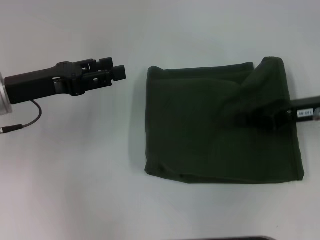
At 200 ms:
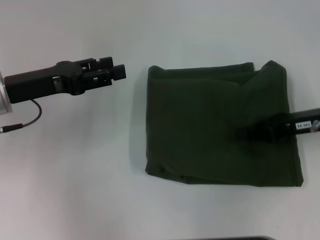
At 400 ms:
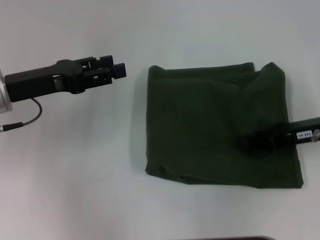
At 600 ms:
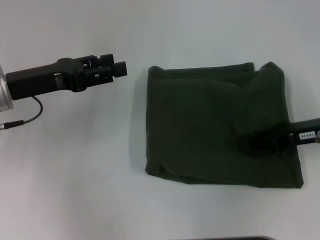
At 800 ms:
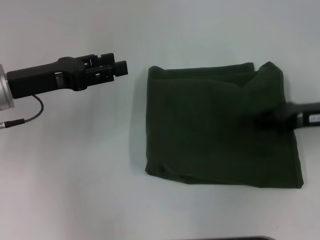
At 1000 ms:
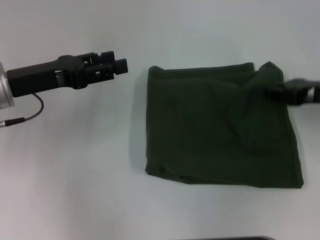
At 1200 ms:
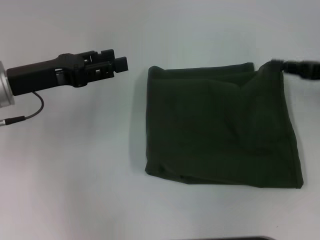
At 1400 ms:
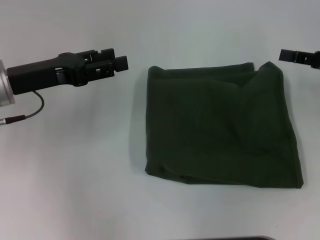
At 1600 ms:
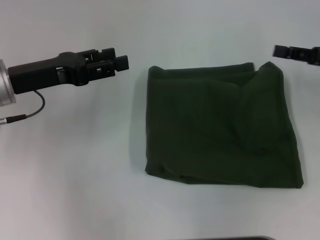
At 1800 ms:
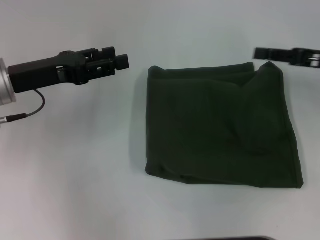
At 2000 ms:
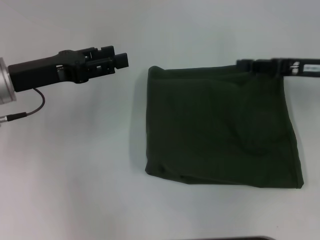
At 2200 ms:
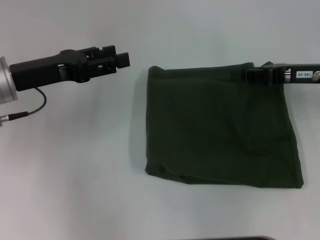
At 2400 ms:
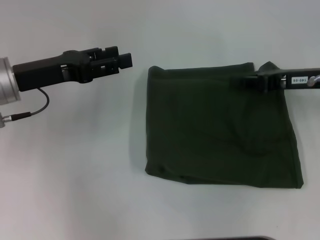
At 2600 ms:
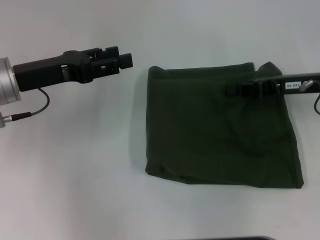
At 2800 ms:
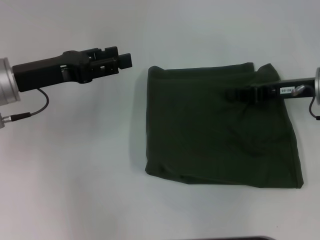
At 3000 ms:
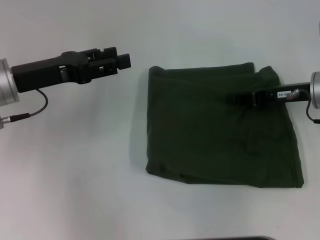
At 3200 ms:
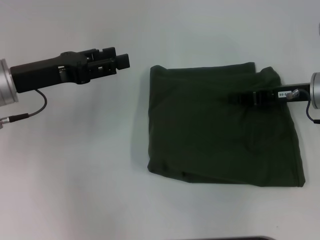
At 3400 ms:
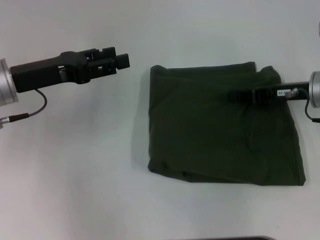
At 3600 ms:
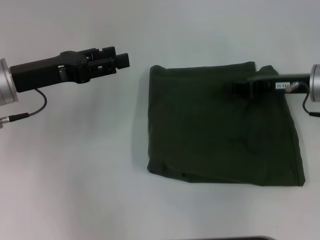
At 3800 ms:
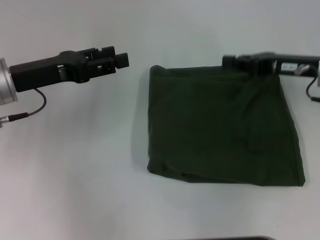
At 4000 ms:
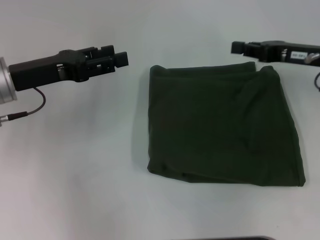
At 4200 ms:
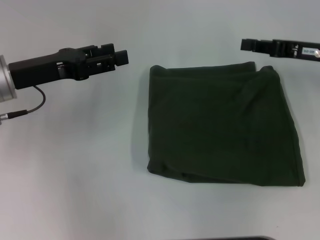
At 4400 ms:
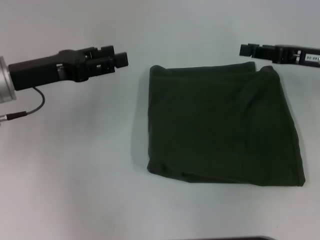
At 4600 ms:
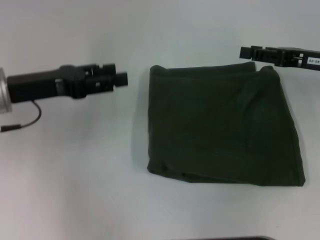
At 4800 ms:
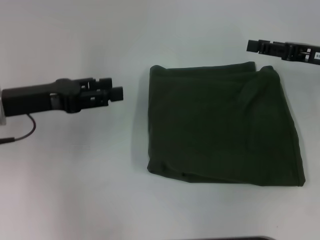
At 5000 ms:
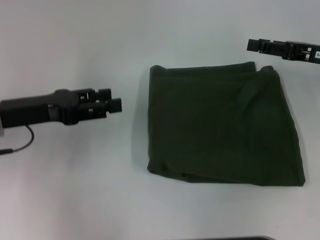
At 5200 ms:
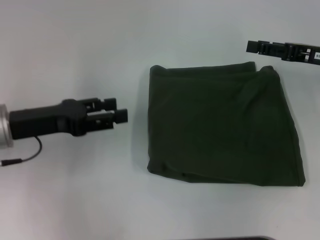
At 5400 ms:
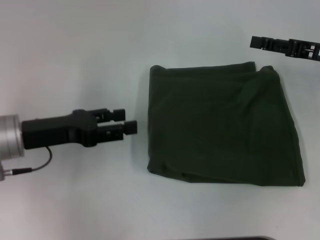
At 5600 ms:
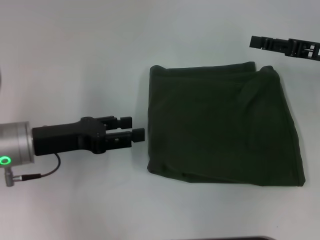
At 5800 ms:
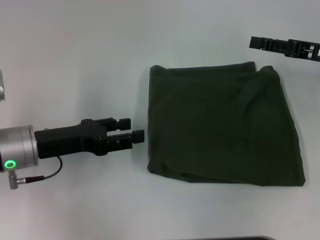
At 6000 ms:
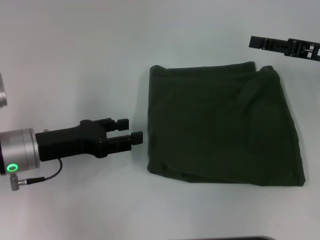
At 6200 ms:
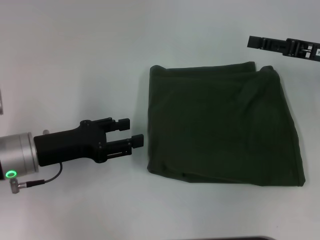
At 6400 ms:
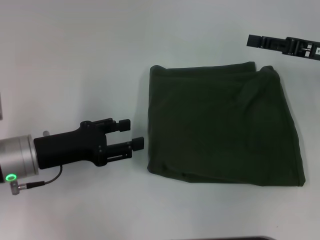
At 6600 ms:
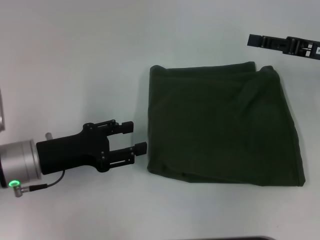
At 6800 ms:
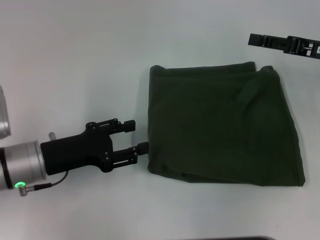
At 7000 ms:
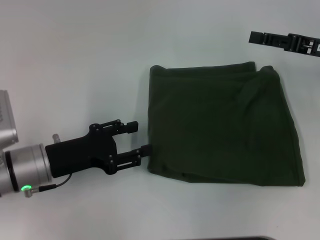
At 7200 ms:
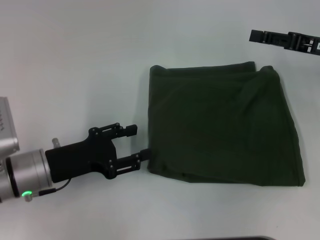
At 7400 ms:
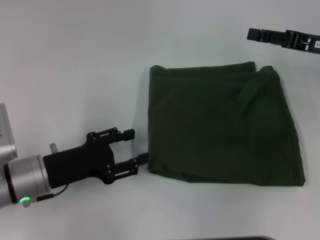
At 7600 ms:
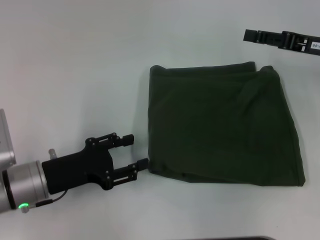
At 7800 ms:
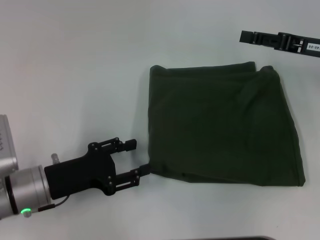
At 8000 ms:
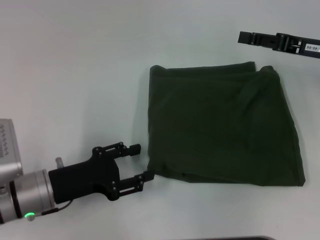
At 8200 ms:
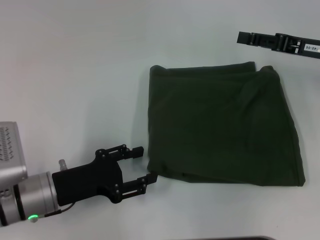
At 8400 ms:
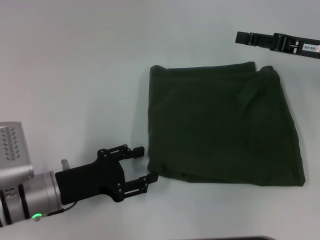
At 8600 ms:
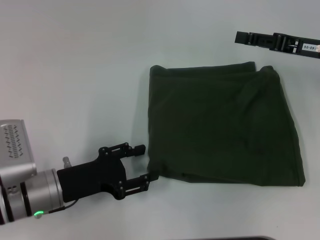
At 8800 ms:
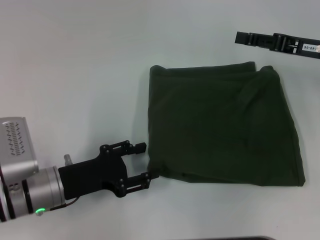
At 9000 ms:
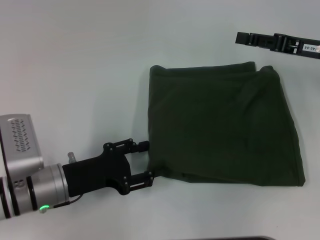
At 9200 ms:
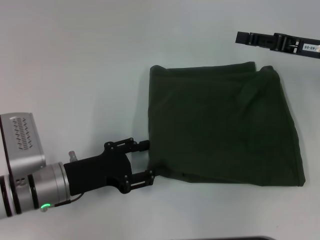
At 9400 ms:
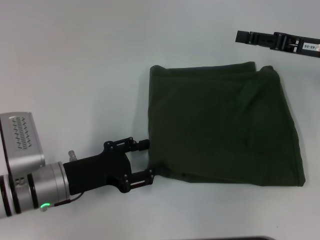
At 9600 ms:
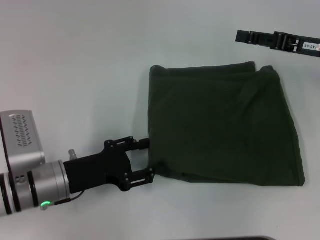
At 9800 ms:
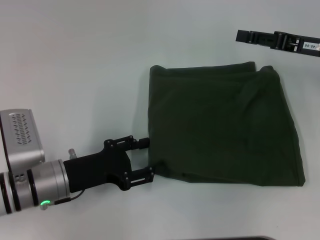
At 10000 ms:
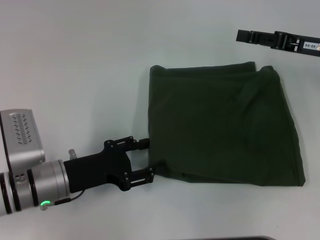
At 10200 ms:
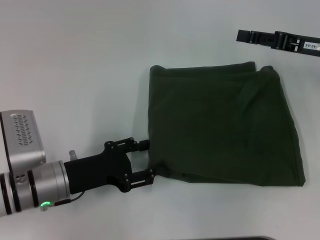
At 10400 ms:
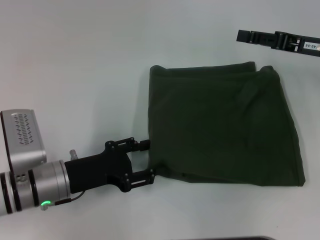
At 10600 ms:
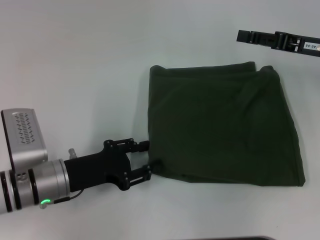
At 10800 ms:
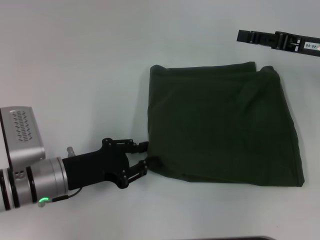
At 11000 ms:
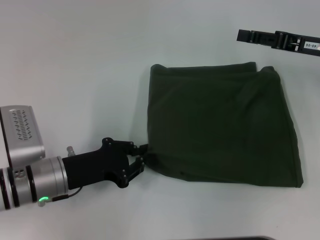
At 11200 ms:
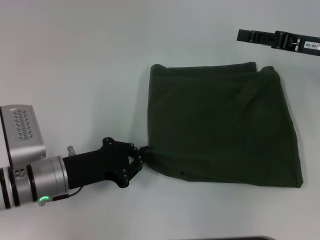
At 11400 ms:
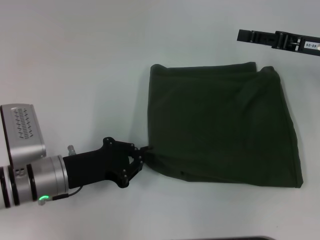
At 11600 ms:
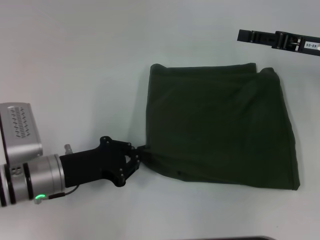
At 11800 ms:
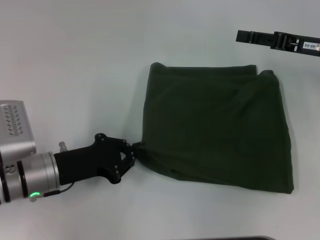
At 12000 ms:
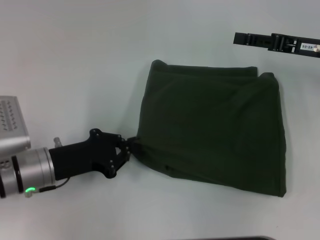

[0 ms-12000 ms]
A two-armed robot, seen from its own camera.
0 ms to 1600 ms: The right gripper moves to the right, some 5 cm.
1600 ms to 3000 ms: The right gripper is displaced to the left by some 10 cm.
3000 ms to 4400 ms: The grippers make only small movements.
4400 ms to 6000 ms: The right gripper opens. The left gripper is displaced downward and backward by roughly 10 cm.
6000 ms to 7600 ms: The left gripper shifts by roughly 5 cm.
7600 ms to 9000 ms: The grippers stay close to where they were, moving slightly.
9000 ms to 10400 ms: Both grippers stay put.
10400 ms to 12000 ms: The left gripper closes.

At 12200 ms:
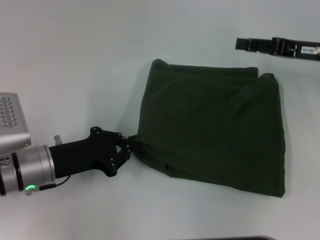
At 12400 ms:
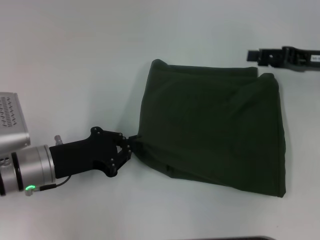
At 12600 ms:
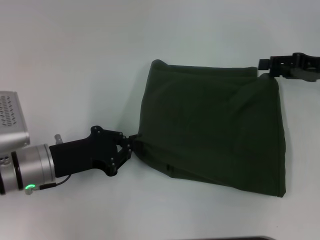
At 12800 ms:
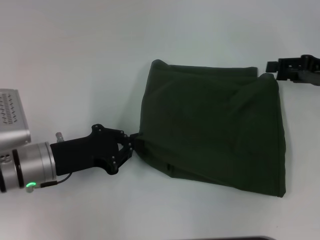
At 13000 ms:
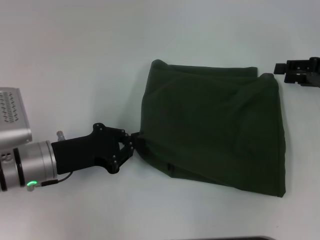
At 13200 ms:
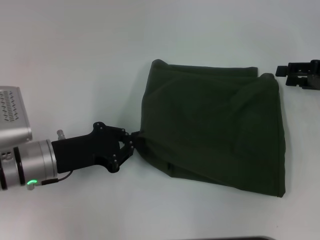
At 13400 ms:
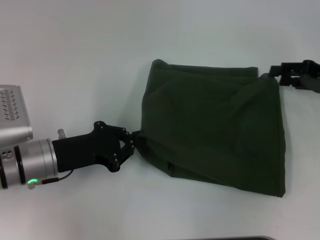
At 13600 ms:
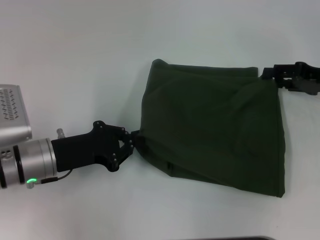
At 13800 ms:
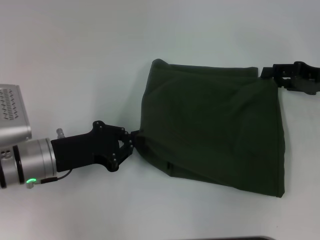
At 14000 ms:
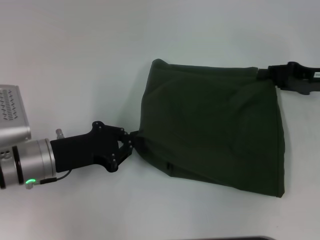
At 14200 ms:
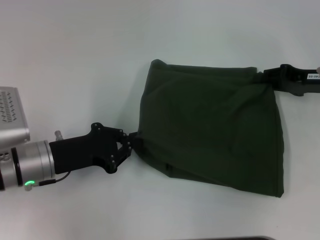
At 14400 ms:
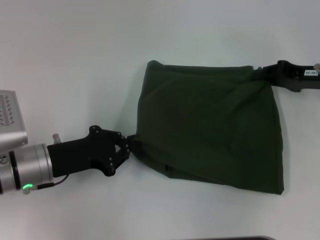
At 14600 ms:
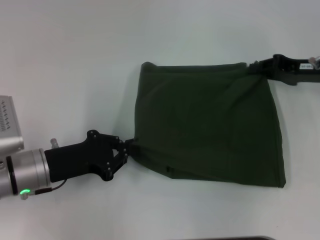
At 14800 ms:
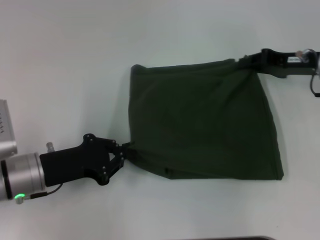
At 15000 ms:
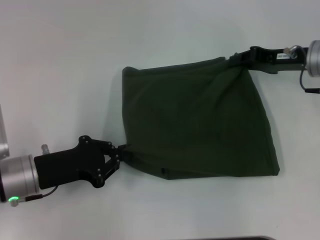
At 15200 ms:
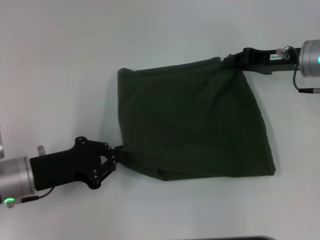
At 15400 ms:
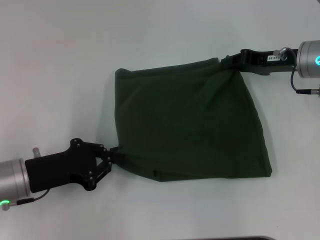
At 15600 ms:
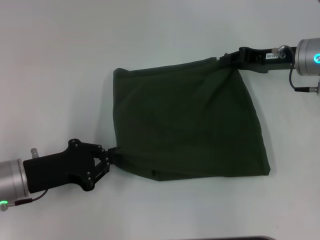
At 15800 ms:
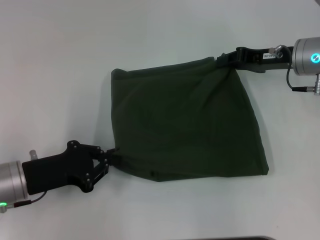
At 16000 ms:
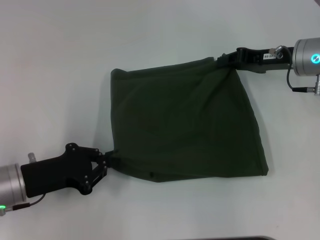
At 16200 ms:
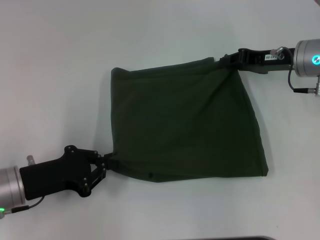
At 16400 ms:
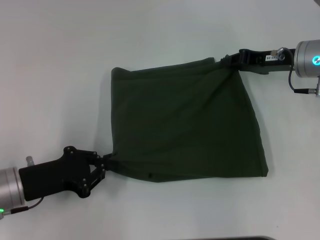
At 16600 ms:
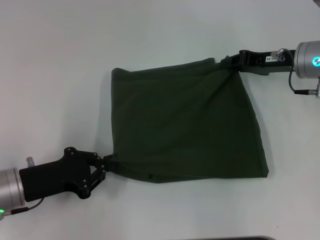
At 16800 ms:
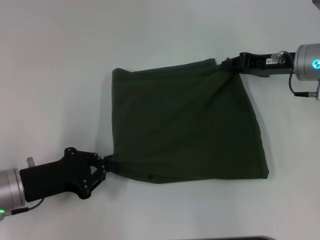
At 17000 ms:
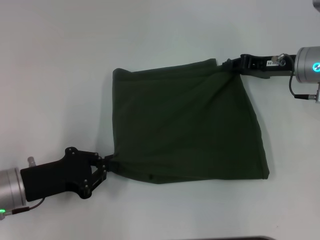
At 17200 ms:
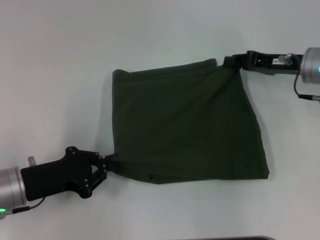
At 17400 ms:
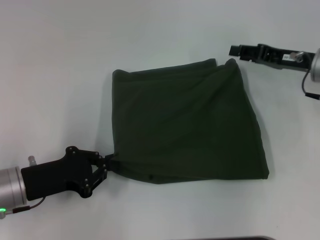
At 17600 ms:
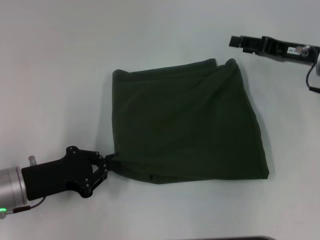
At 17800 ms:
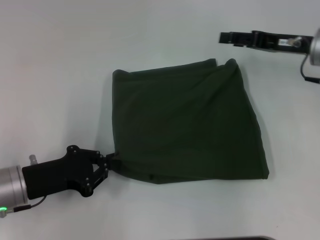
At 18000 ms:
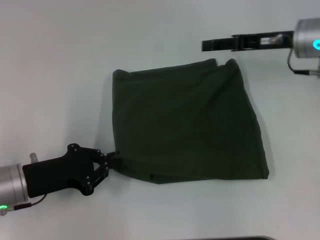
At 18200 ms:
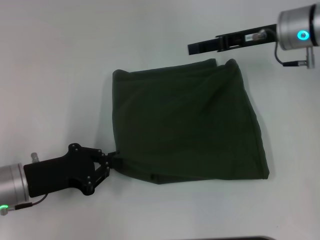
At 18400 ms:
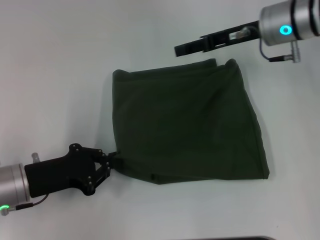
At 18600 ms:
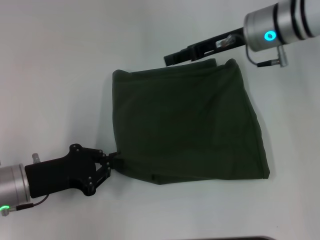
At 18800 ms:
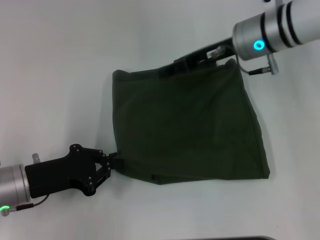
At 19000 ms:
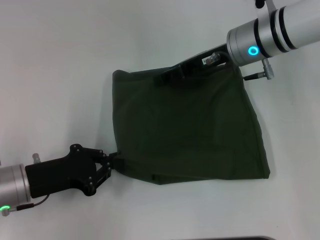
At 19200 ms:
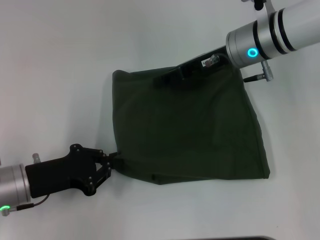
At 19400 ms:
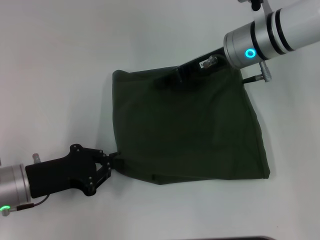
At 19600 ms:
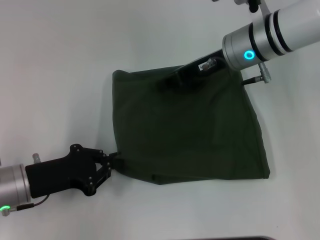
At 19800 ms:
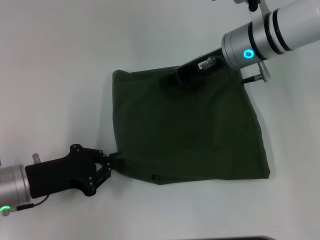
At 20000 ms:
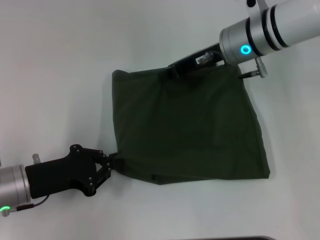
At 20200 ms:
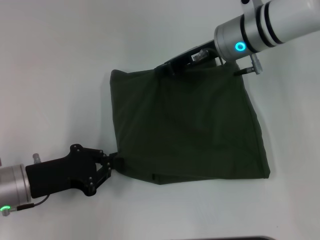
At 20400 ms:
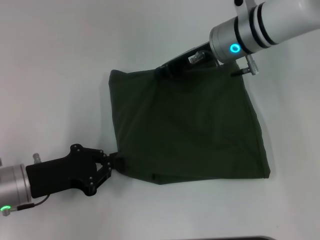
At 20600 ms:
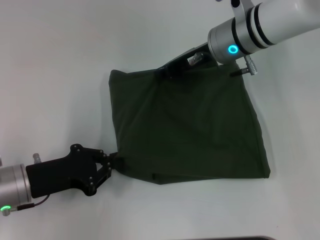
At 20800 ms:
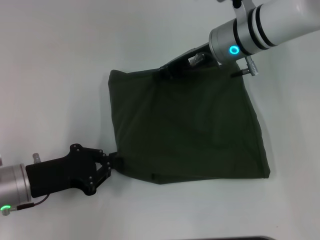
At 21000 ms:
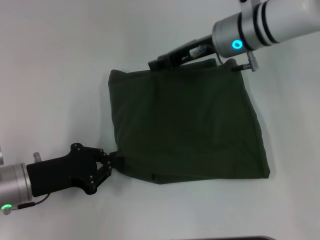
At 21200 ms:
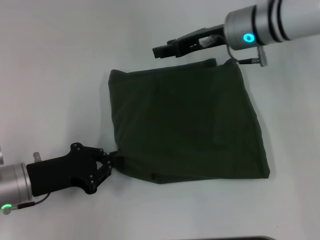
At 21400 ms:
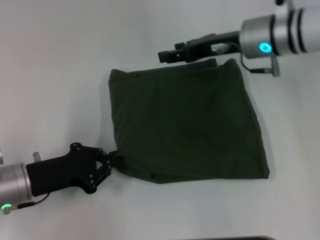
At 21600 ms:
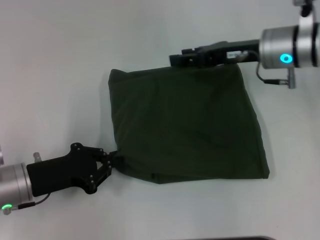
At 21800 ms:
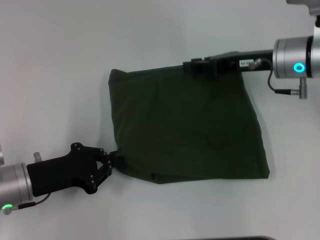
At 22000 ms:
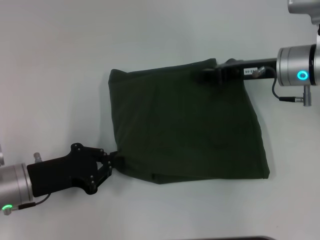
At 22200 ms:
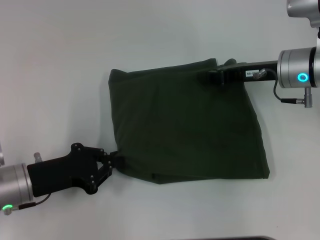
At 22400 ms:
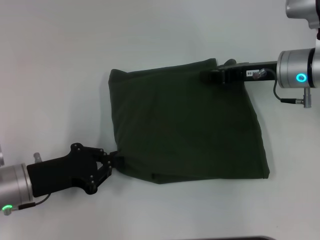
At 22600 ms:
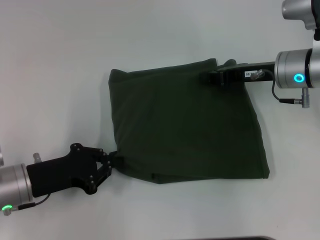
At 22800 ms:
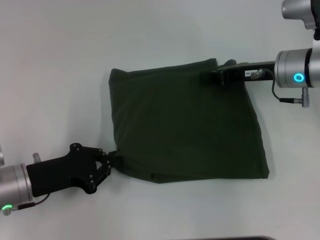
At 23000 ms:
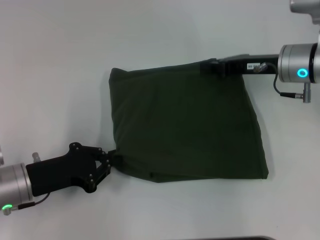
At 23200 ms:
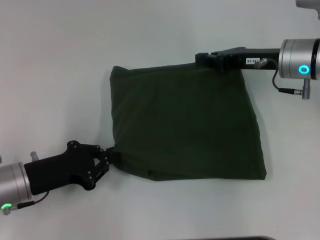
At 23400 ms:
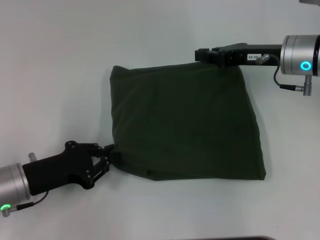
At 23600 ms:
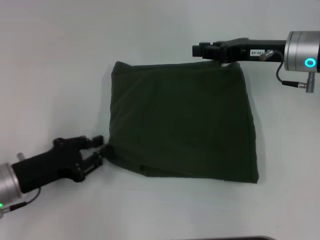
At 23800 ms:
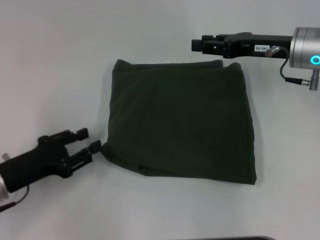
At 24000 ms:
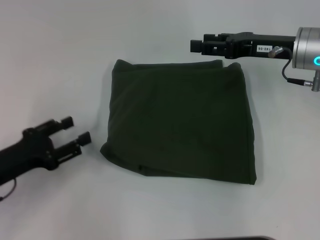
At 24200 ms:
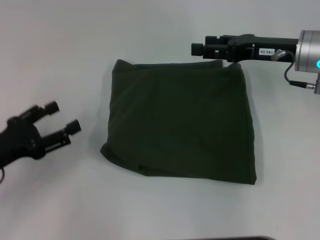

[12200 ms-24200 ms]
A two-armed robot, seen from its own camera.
13800 ms to 15200 ms: The right gripper heads to the left, covering approximately 5 cm, and closes.
15200 ms to 16600 ms: The grippers move only a little.
16600 ms to 18200 ms: The right gripper ends up approximately 5 cm from where it was, and opens up.
18200 ms to 19800 ms: The right gripper shifts some 10 cm to the left, and closes its fingers.
19800 ms to 21200 ms: There are only small adjustments of the grippers.
21200 ms to 22600 ms: The right gripper is displaced to the right by about 10 cm, and closes.
22600 ms to 24200 ms: The right gripper opens. Meanwhile the left gripper goes roughly 5 cm to the left, and opens up.
